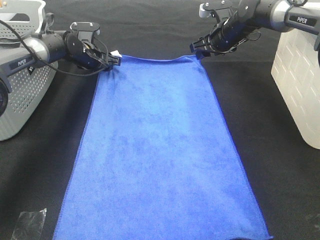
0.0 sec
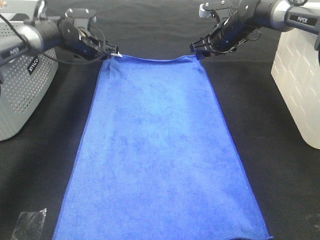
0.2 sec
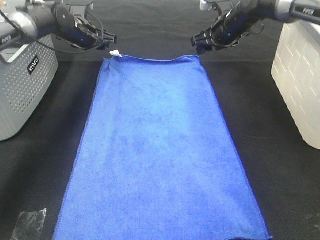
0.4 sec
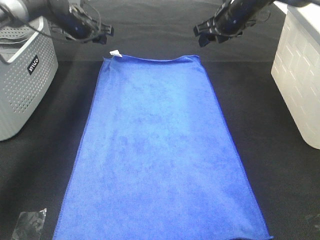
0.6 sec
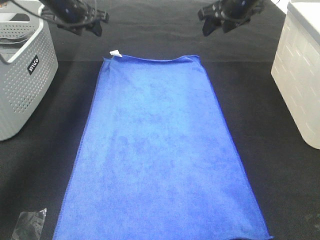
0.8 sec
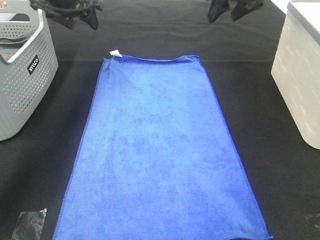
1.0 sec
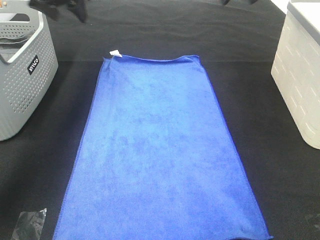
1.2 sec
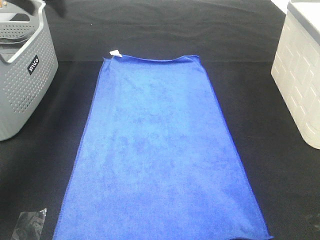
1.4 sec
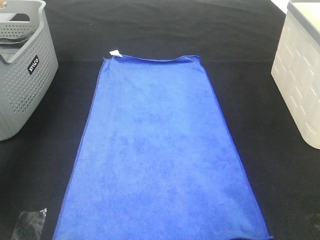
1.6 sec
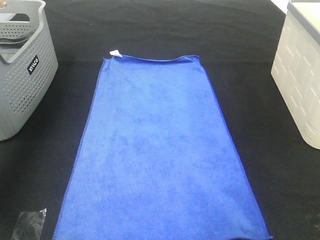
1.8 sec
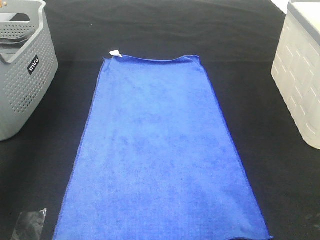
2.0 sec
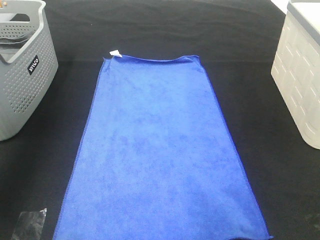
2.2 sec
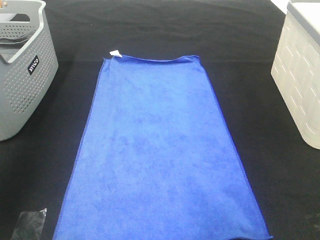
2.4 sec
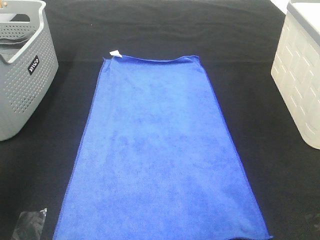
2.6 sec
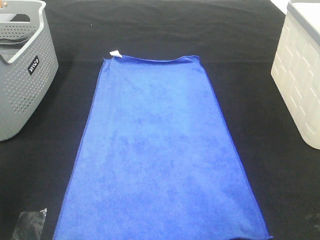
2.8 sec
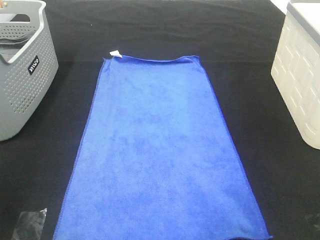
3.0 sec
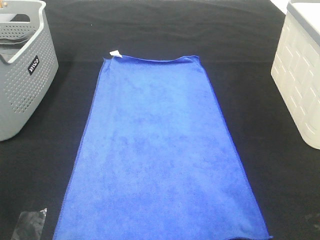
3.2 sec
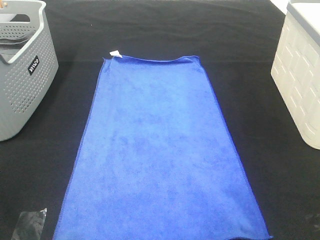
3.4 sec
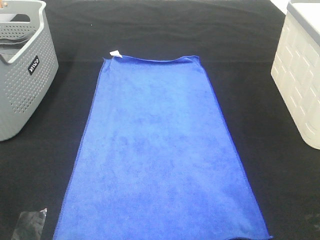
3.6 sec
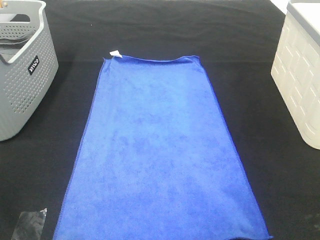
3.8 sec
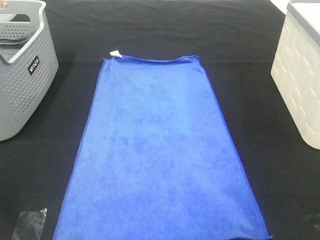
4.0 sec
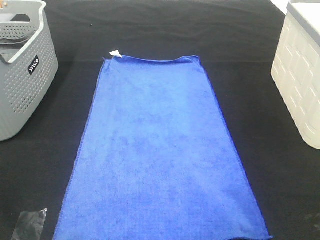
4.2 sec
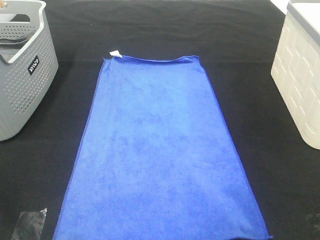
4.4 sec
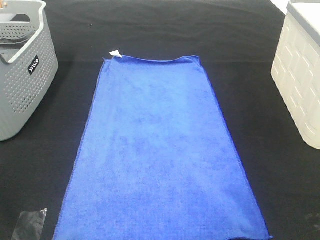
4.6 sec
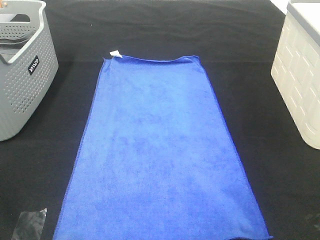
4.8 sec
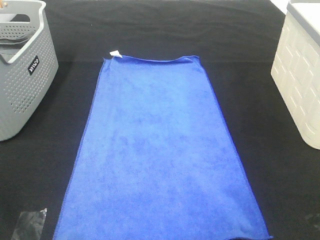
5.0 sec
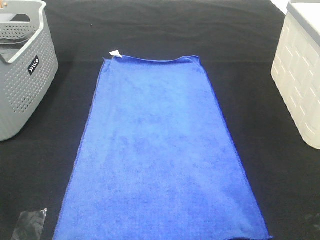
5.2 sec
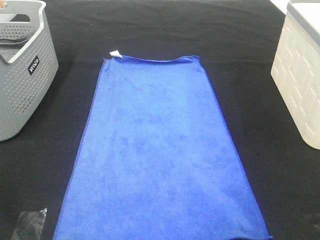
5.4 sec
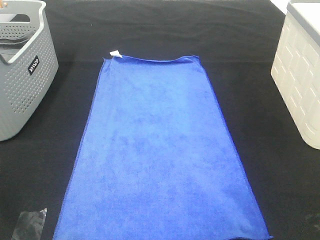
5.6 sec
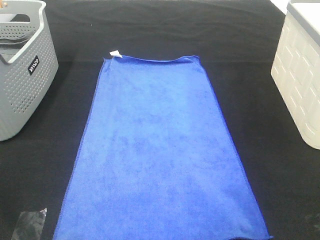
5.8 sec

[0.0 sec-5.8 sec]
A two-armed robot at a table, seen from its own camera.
Task of the whole recording: Remove the towel and place it.
0.0 sec to 1.4 sec: The left gripper heads upward, covering roughly 25 cm, while the right gripper heads upward and backward, covering roughly 25 cm.
1.4 sec to 2.8 sec: The left gripper is displaced backward by about 40 cm.
4.4 sec to 5.8 sec: Both grippers stay about where they are.
